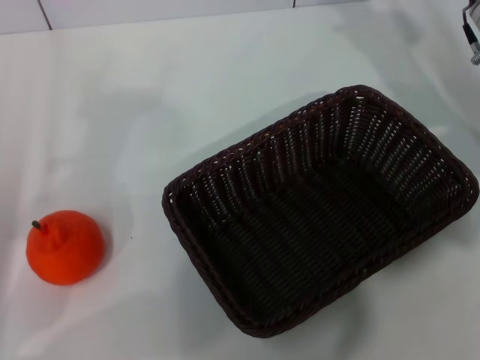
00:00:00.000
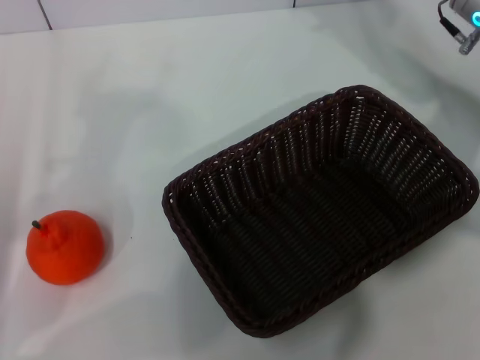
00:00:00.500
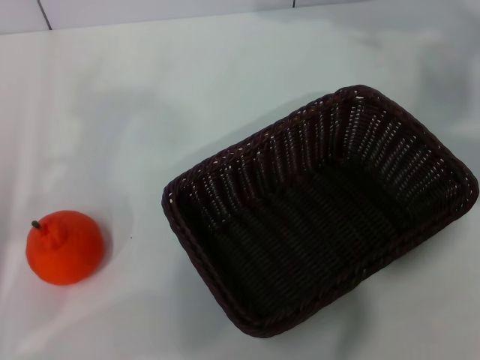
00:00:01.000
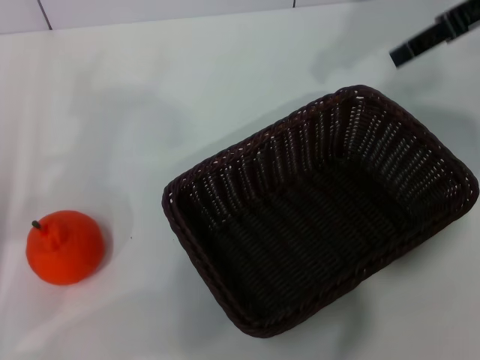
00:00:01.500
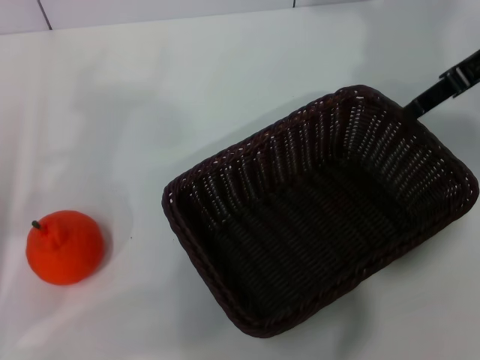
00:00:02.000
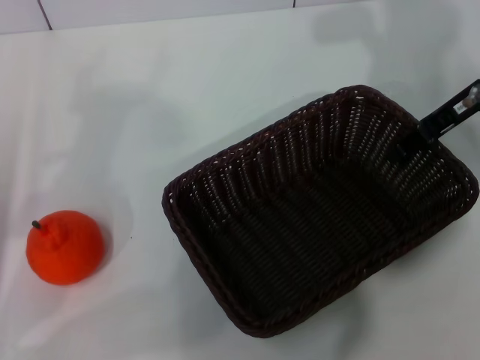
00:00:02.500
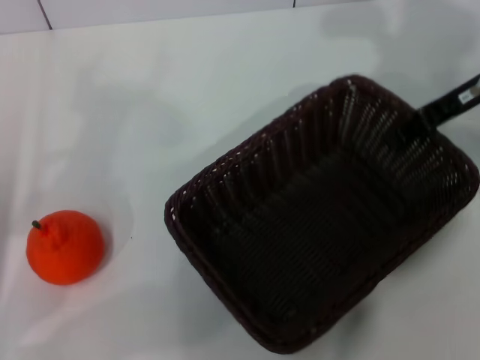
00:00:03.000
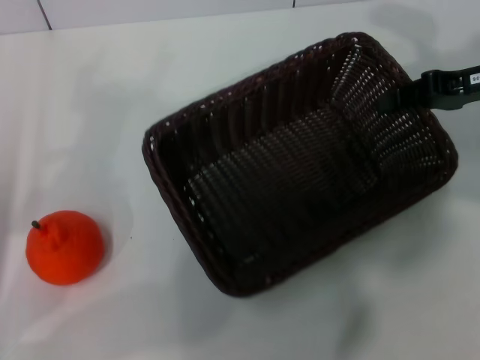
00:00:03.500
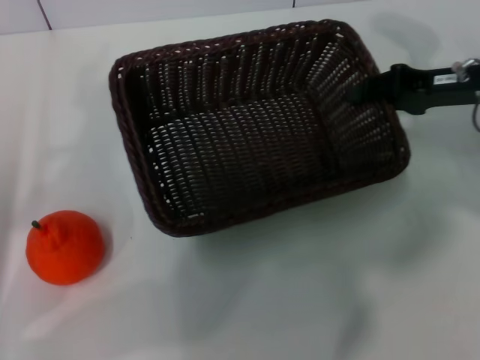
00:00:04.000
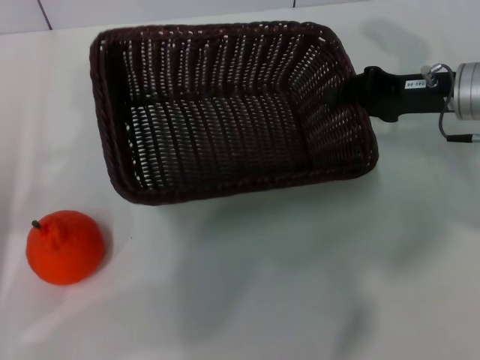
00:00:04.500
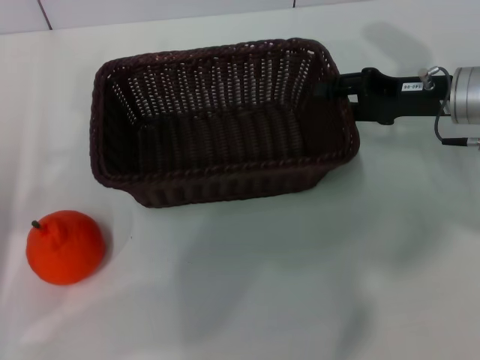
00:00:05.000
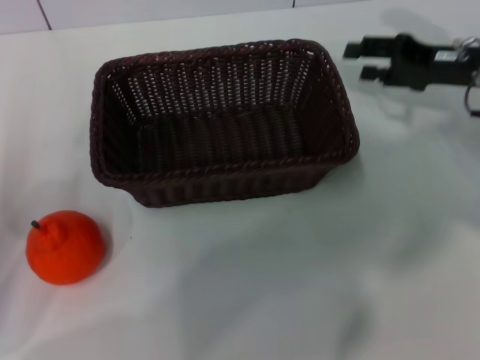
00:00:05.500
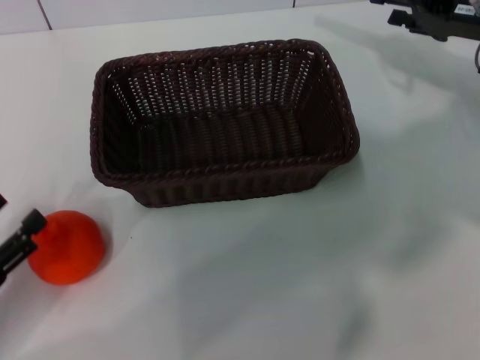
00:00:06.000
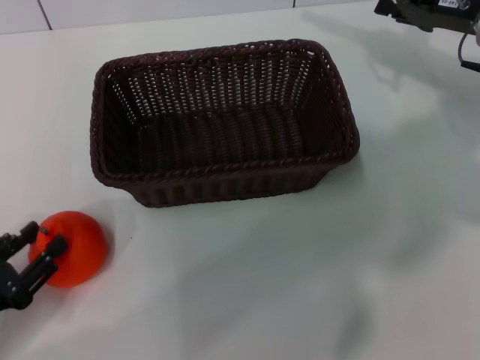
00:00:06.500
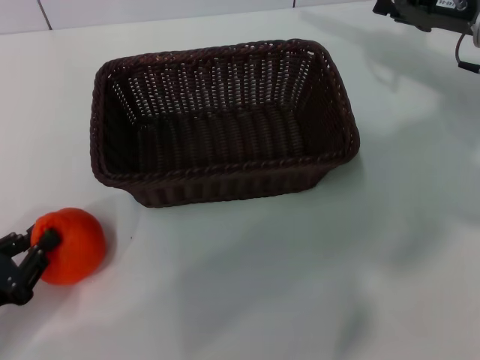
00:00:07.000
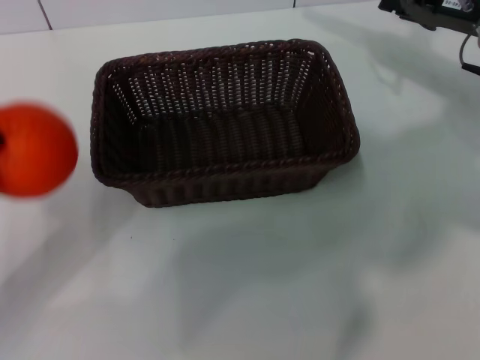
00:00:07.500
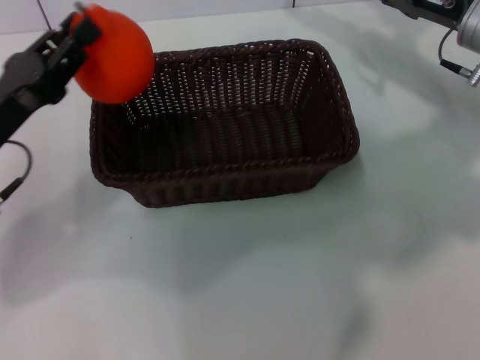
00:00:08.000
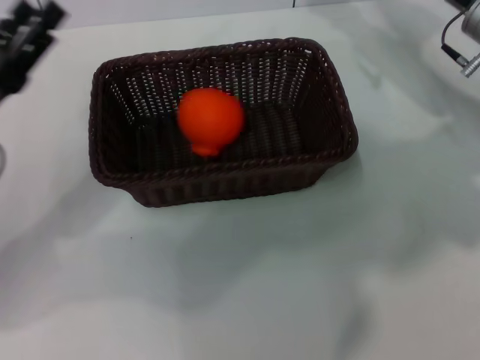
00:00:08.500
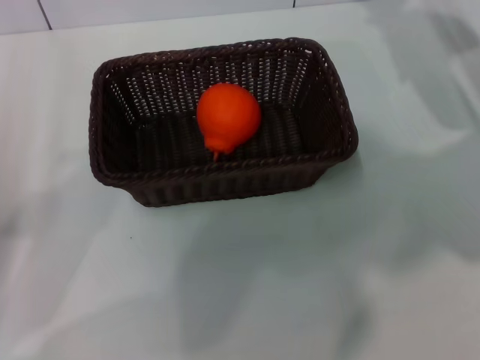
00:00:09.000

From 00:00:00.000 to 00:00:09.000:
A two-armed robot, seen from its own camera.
Task of the whole recording: the right gripper pick up the black basket and place it horizontally in the middle of the table, the left gripper pick up the orange and place it into the black basket.
Step, from 00:00:00.000 to 00:00:03.500: Pick up the dark basket with the right gripper.
Step, from 00:00:04.000 to 00:00:05.500: Place the dark basket in the center of view with the right gripper.
Step, from 00:00:06.000 to 00:00:07.000: Pick up the orange with the left gripper.
Step, from 00:00:07.500 to 00:00:08.000: Place the orange into the dark basket with the left gripper.
From 00:00:00.000 to 00:00:02.000: The right gripper moves upward, about 10 cm.
From 00:00:02.000 to 00:00:04.500: The right gripper travels downward by approximately 15 cm, and closes.
From 00:00:04.500 to 00:00:07.000: The right gripper changes place by approximately 5 cm, and opens; the left gripper is displaced backward and downward by some 10 cm, and closes its fingers.
From 00:00:07.000 to 00:00:09.000: The left gripper heads upward, covering roughly 5 cm, goes forward and returns, approximately 15 cm each way, and opens.

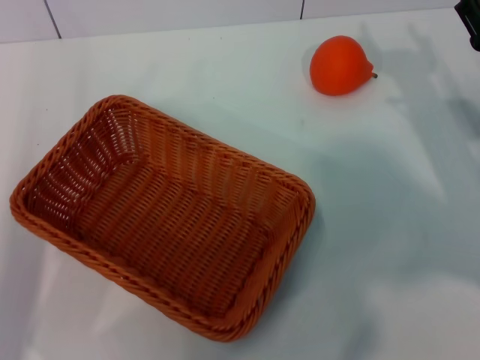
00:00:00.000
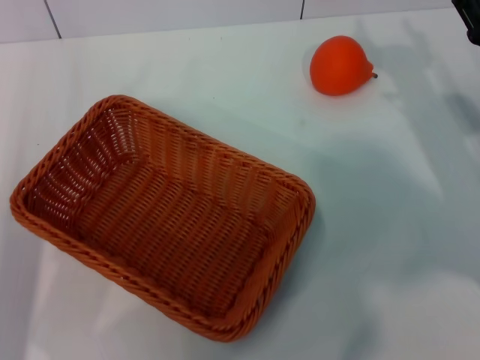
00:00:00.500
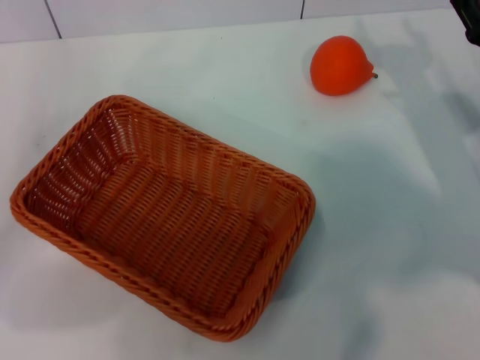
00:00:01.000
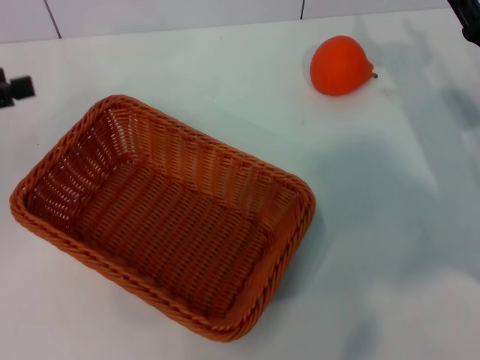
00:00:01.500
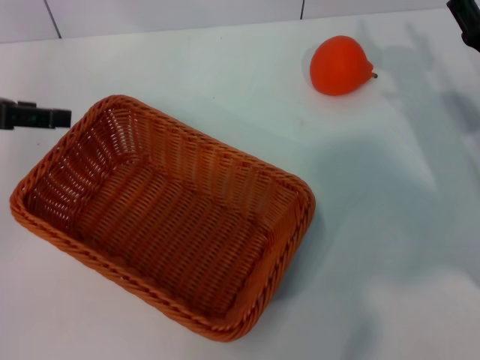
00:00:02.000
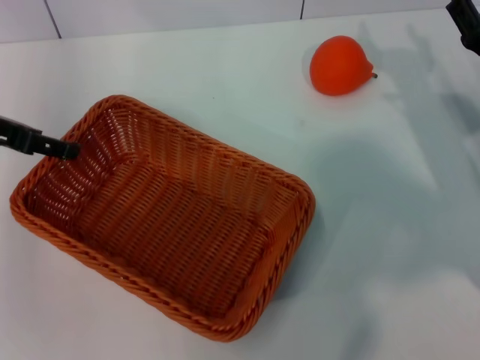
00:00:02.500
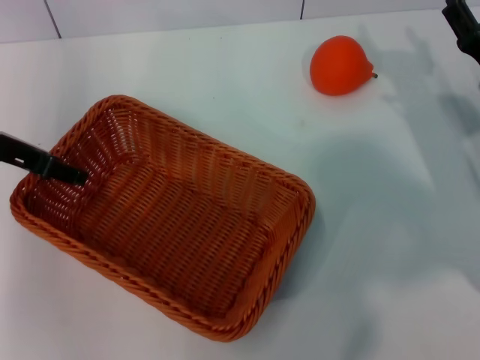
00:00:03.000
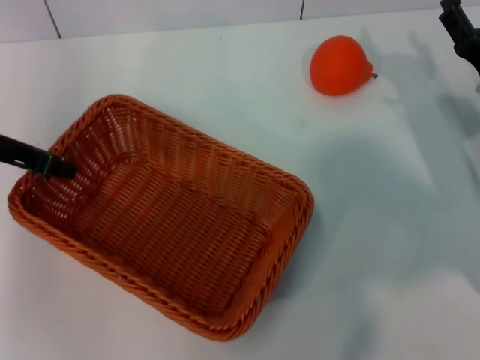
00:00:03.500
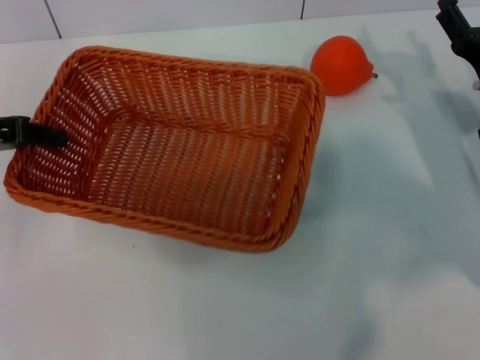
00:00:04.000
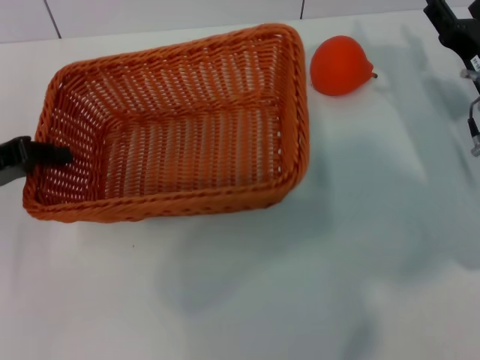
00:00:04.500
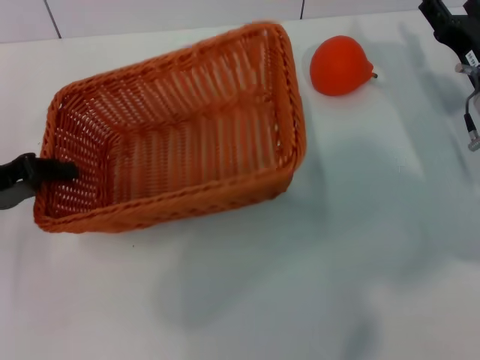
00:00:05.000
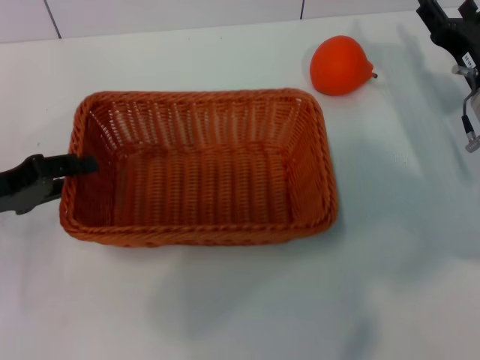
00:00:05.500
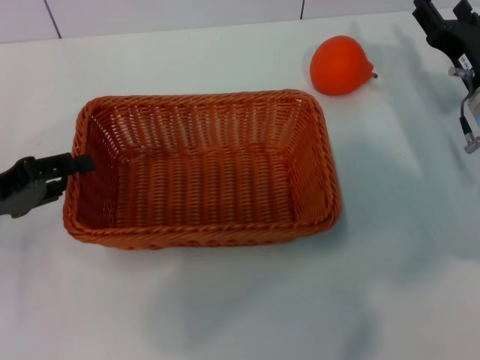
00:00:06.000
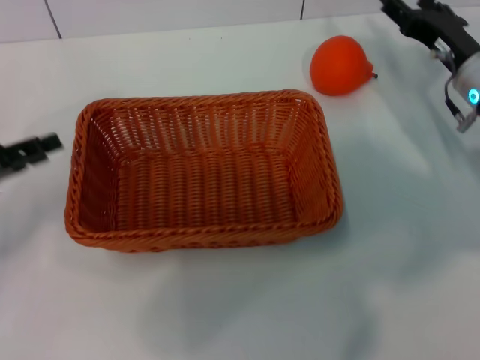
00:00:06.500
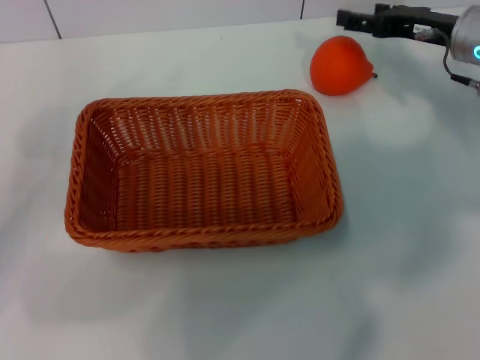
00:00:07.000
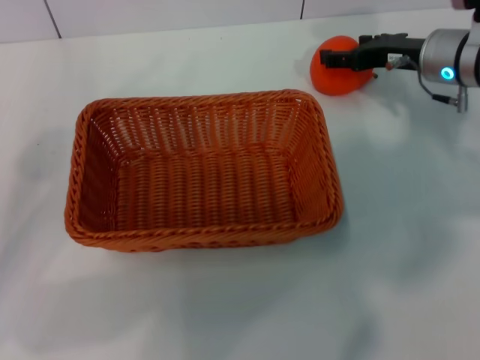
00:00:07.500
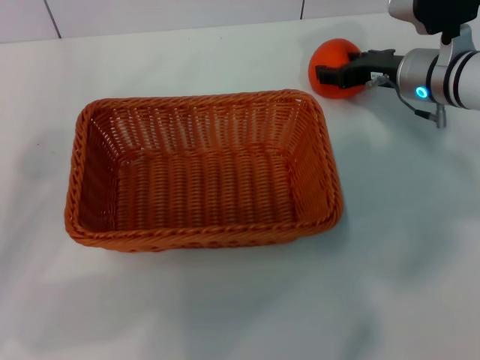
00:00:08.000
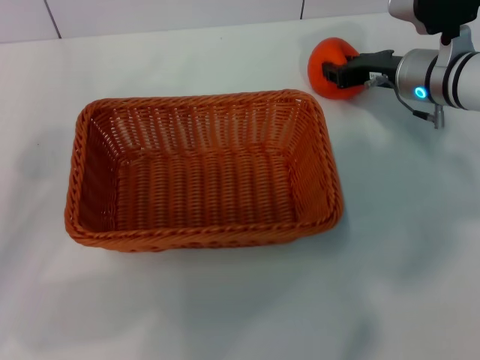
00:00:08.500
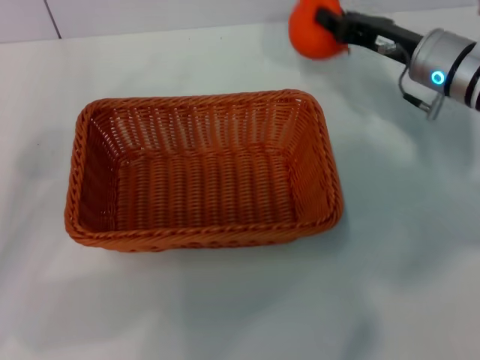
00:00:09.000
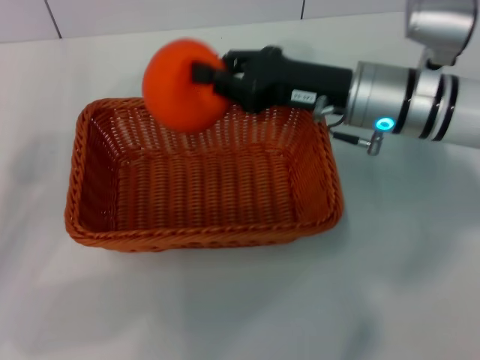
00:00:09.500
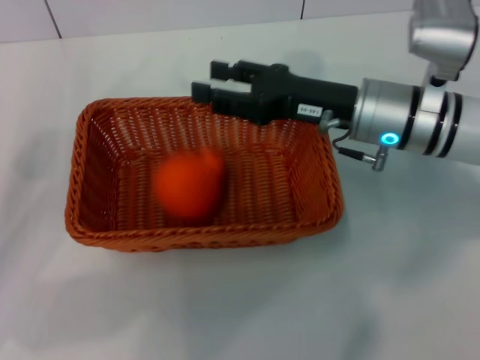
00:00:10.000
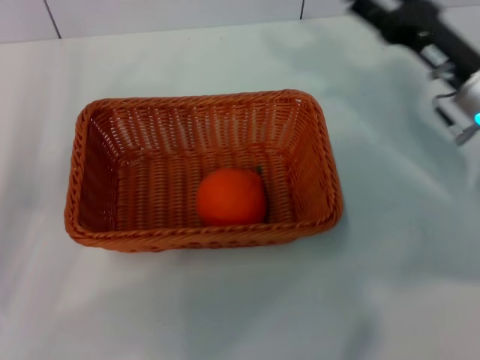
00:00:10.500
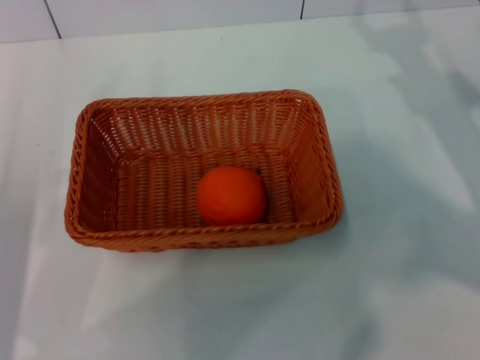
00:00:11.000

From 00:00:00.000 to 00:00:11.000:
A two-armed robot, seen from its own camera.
Task of the whole recording: the left gripper pick up the yellow basket and place it horizontally in the middle of the table, the right gripper pick up the orange and place it into the yellow basket.
Step, from 00:00:00.000 to 00:00:03.500: Pick up the light basket with the left gripper.
Step, from 00:00:04.000 to 00:00:05.500: Place the light basket in the center of view with the left gripper.
Step, from 00:00:06.000 to 00:00:08.500: Pick up the orange with the right gripper.
Step, from 00:00:09.000 to 00:00:09.500: Place the orange into the light basket with the right gripper.
From 00:00:00.000 to 00:00:02.000: The left gripper moves forward and upward, roughly 20 cm.
From 00:00:02.000 to 00:00:03.500: The left gripper goes roughly 5 cm to the right, and closes.
From 00:00:03.500 to 00:00:05.500: The left gripper heads backward and downward, covering some 10 cm.
From 00:00:05.500 to 00:00:07.500: The left gripper ends up some 5 cm from where it was, and opens its fingers, while the right gripper shifts roughly 5 cm forward.
From 00:00:07.500 to 00:00:09.000: The right gripper closes its fingers.
From 00:00:09.000 to 00:00:11.000: The left gripper ends up approximately 5 cm from where it was. Meanwhile the right gripper moves to the right and backward, some 10 cm, and opens up.
